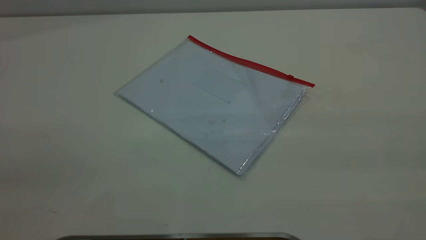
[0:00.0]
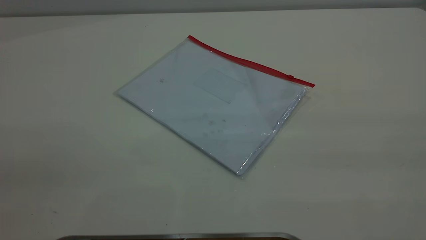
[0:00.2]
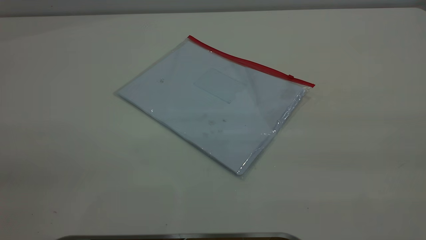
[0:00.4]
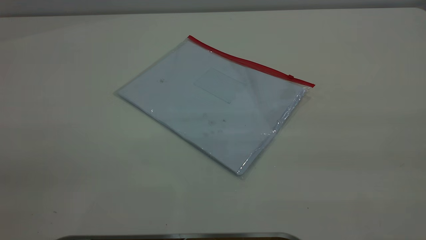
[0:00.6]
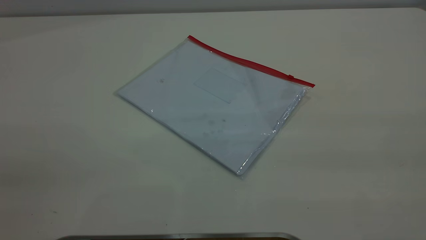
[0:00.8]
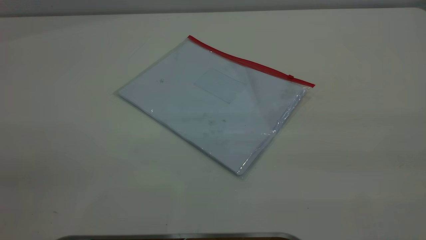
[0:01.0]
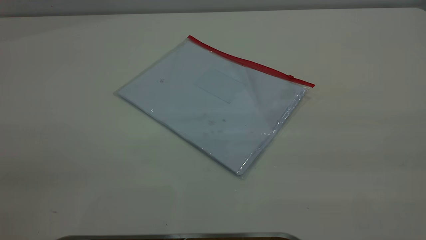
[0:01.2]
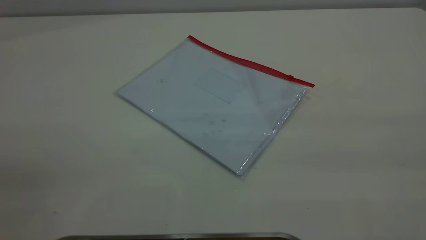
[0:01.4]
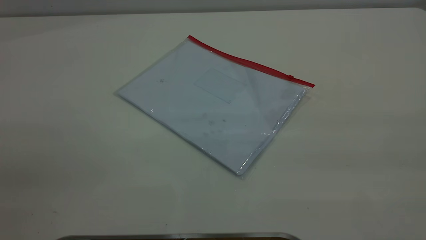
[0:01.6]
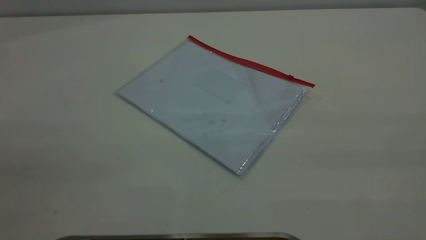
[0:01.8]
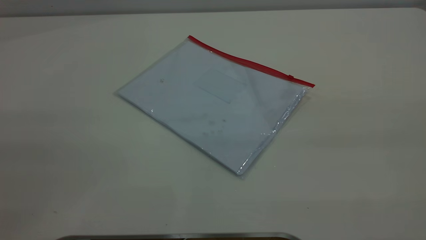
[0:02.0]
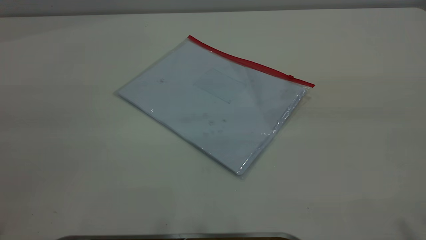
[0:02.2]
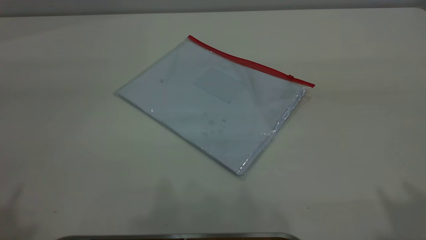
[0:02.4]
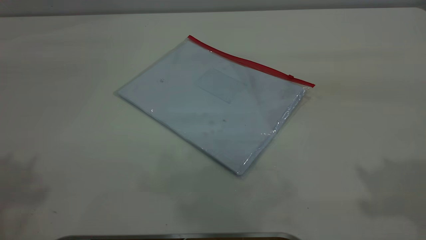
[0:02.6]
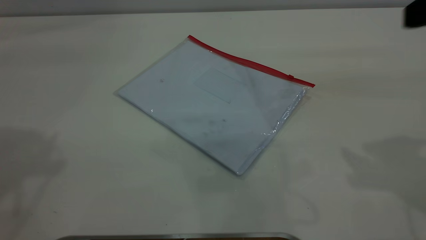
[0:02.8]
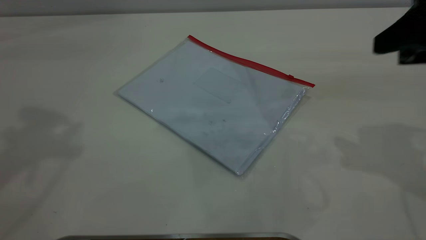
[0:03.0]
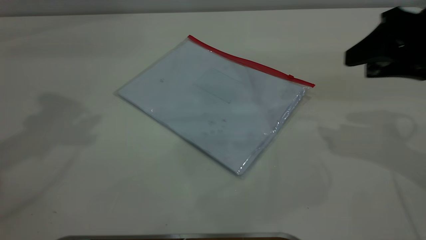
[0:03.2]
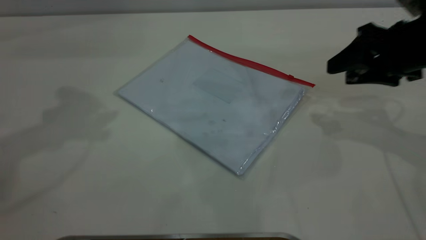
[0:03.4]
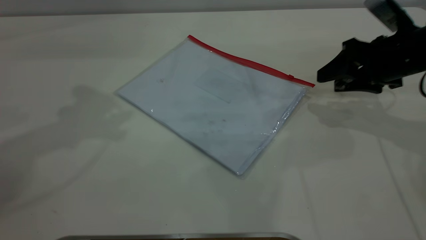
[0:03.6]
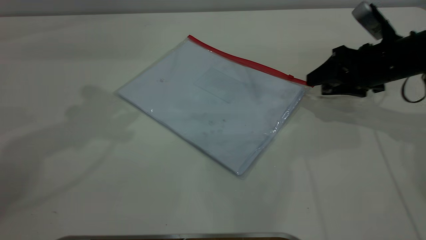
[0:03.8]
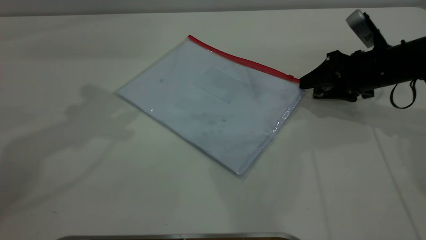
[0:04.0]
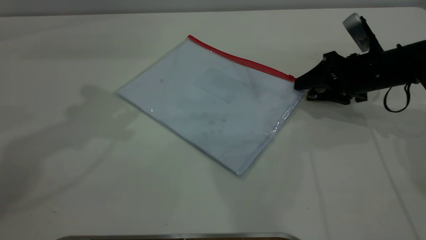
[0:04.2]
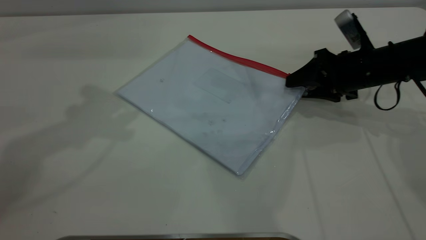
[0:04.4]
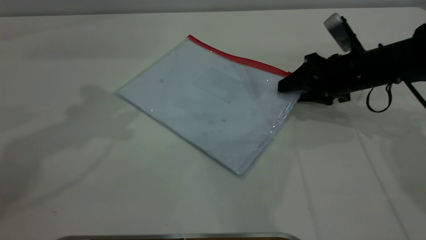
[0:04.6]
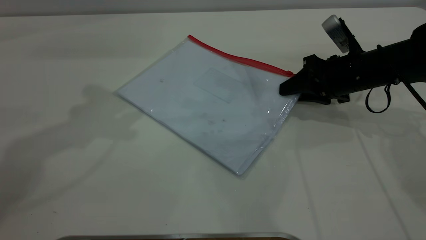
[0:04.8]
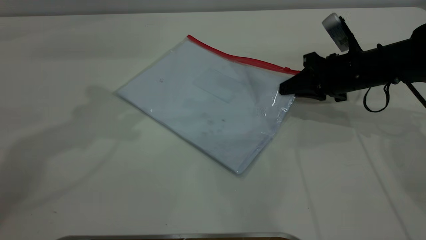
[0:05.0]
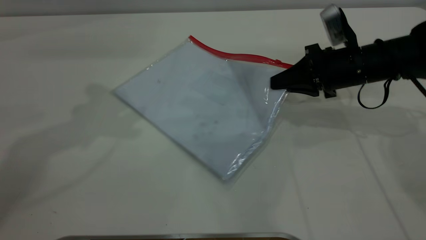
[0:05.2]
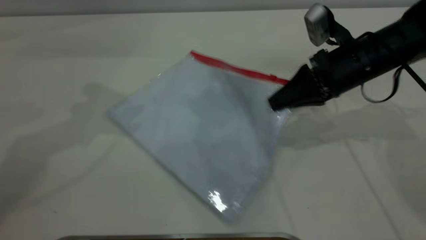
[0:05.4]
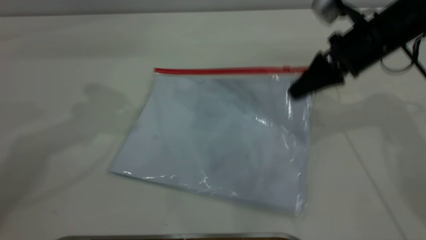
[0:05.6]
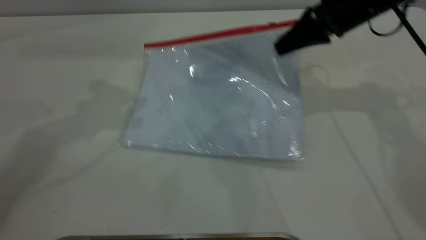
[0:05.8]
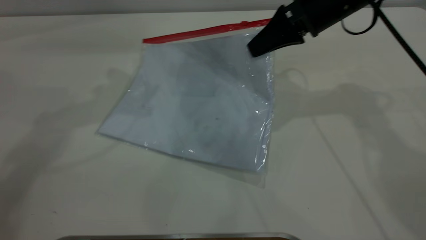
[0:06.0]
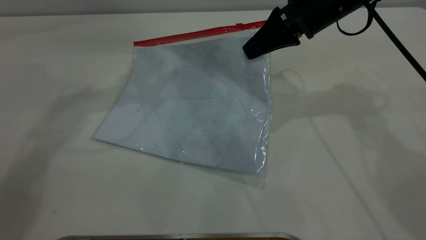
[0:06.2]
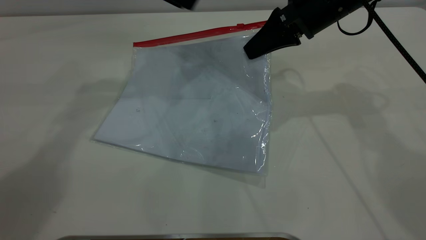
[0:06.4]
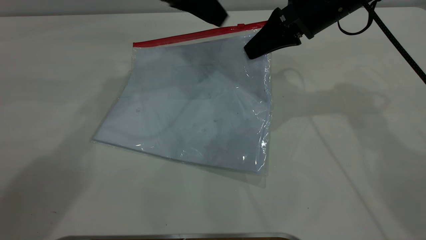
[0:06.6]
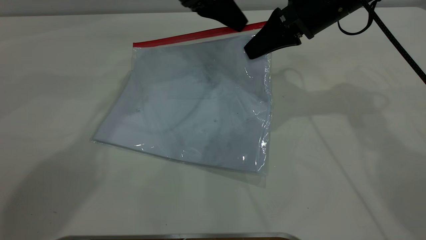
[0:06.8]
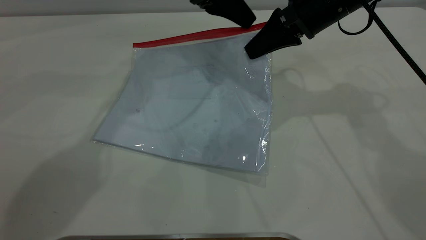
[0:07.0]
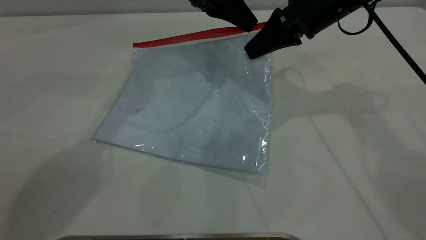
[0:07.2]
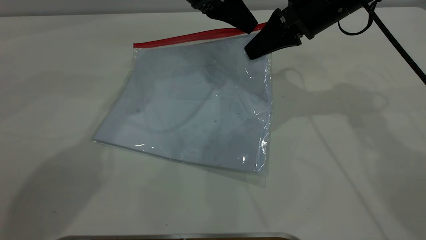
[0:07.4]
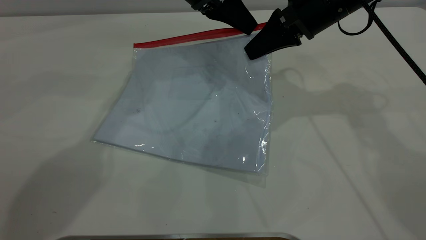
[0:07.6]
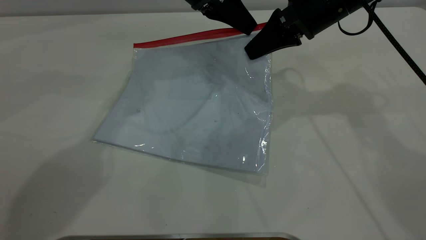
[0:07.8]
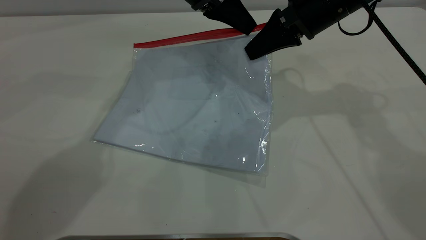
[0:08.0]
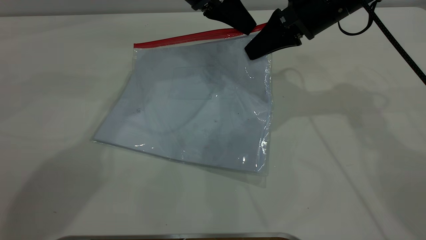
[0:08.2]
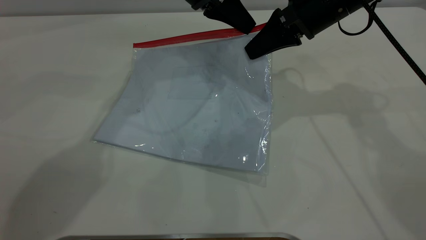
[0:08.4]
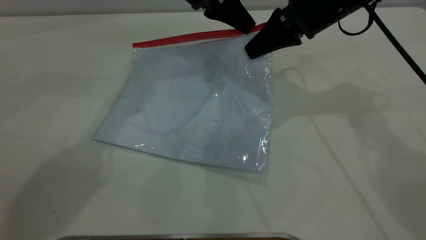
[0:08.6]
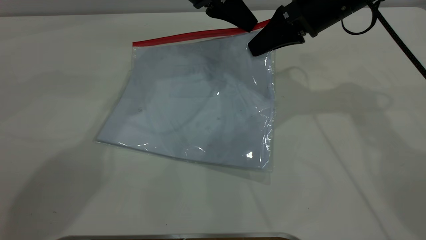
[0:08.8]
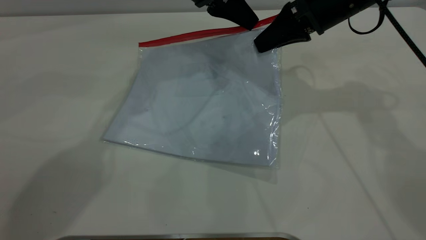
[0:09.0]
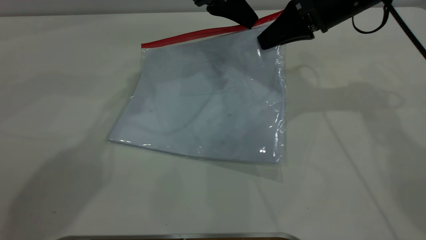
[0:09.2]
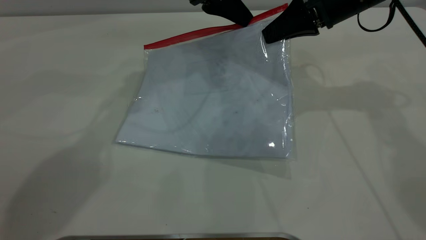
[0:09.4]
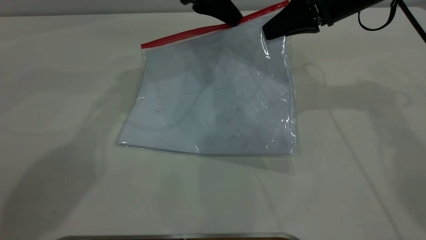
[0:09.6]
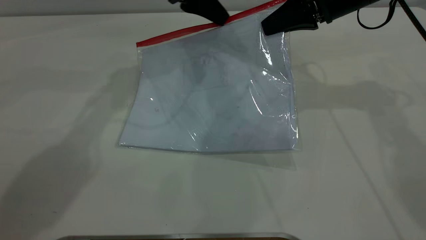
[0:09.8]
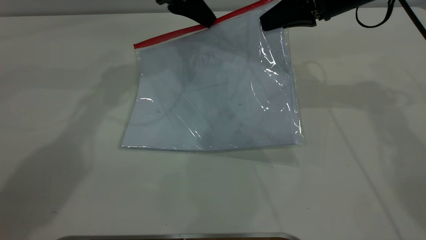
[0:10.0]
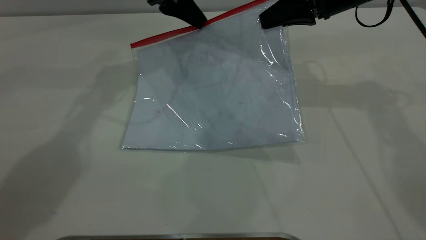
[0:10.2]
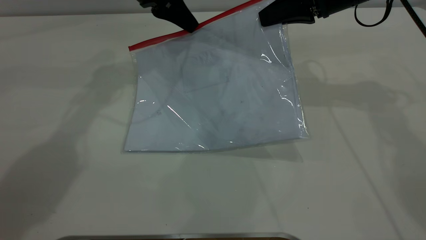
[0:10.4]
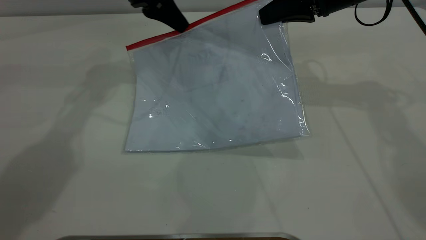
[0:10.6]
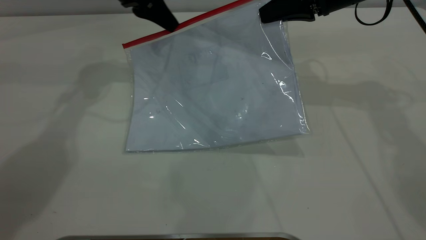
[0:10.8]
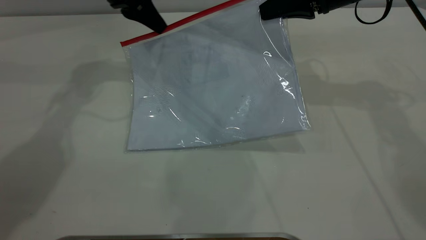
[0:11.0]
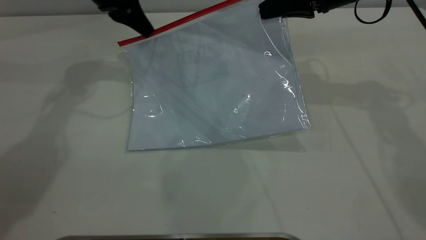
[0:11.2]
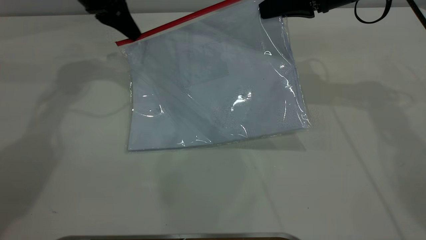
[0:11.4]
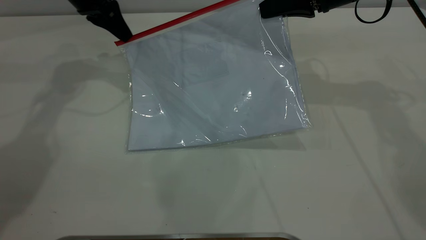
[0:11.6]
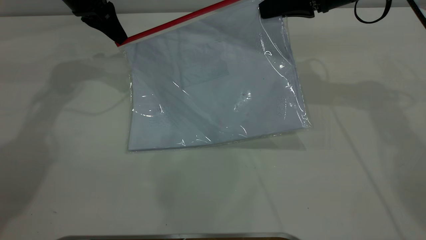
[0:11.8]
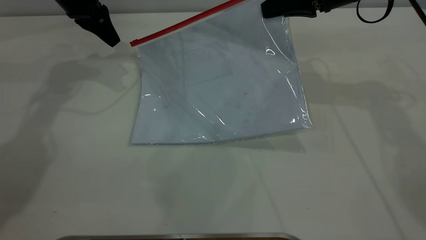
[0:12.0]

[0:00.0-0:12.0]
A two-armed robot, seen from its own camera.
Step, 0:00.0 to 0:05.2: Pick up the transparent plastic bag with the right gripper.
0:00.0 to 0:01.6: Both grippers stay put.
0:01.6 to 0:03.0: The right gripper goes some 30 cm forward and downward.
0:03.0 to 0:04.4: The right gripper goes about 20 cm downward and forward.
0:04.4 to 0:06.0: The right gripper shifts approximately 15 cm upward and to the left, and closes its fingers, while the left gripper is displaced forward by some 5 cm.
0:06.0 to 0:07.6: The left gripper heads to the right and downward, covering about 15 cm.
0:07.6 to 0:09.0: The left gripper closes.
0:09.0 to 0:10.4: The left gripper heads to the left, covering approximately 10 cm.
0:10.4 to 0:12.0: The left gripper moves to the left, about 10 cm.

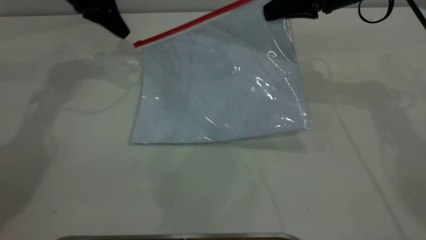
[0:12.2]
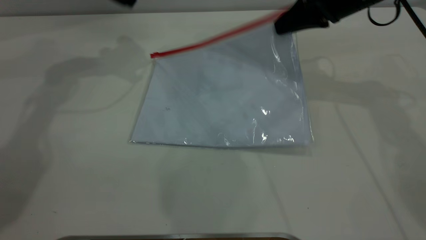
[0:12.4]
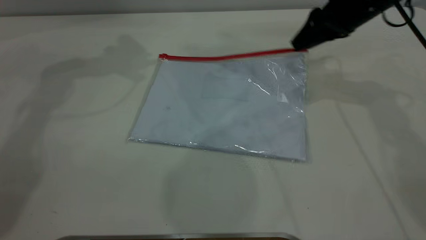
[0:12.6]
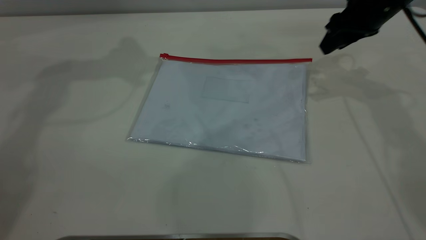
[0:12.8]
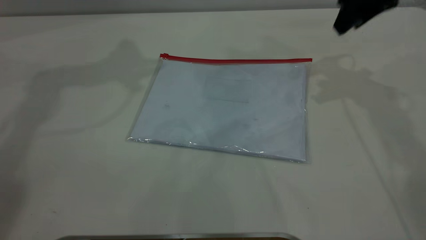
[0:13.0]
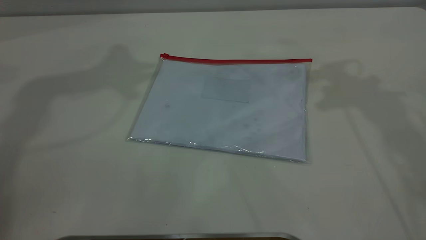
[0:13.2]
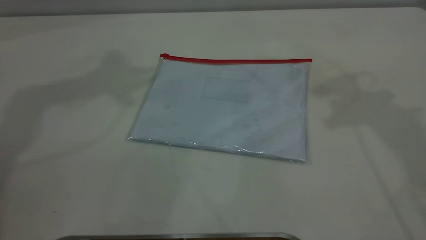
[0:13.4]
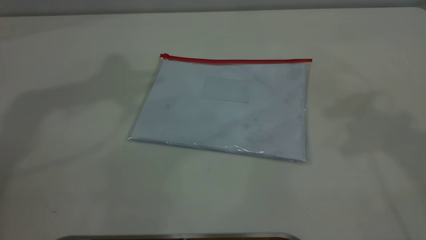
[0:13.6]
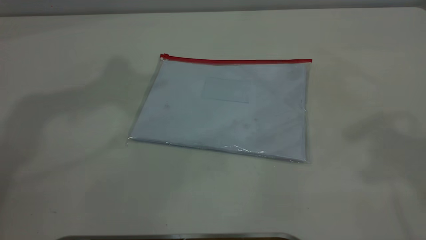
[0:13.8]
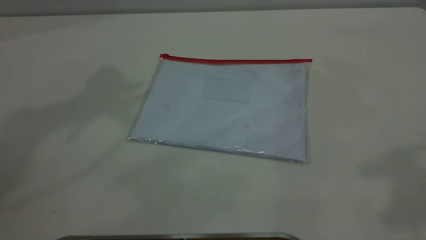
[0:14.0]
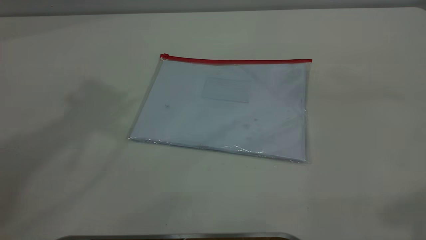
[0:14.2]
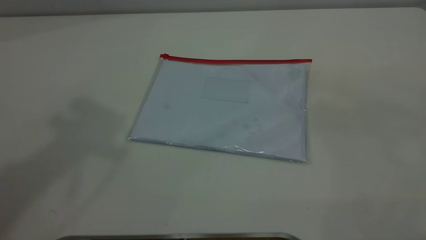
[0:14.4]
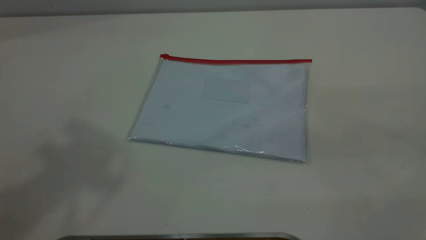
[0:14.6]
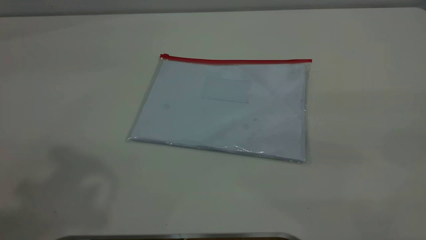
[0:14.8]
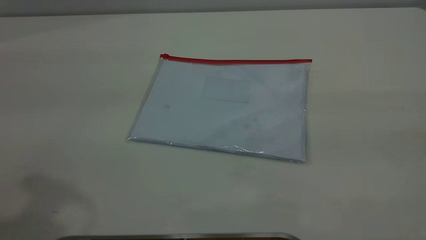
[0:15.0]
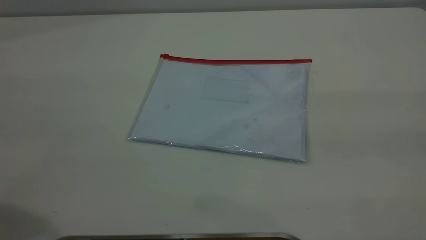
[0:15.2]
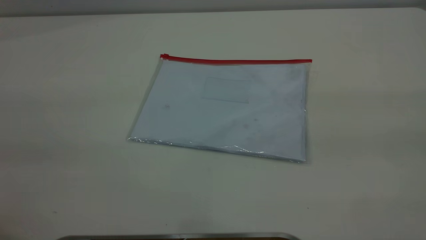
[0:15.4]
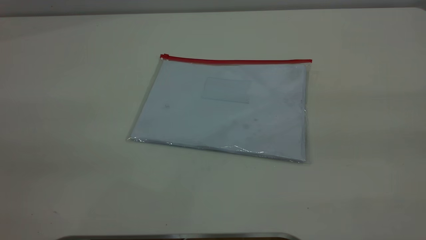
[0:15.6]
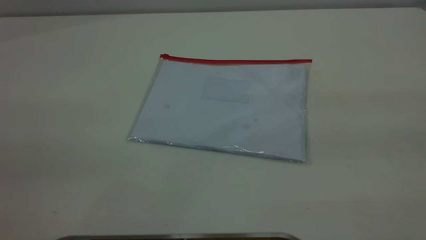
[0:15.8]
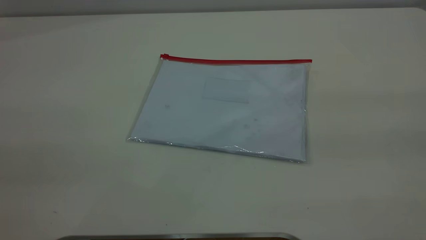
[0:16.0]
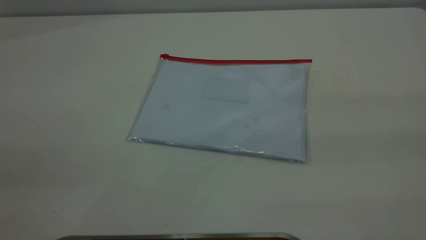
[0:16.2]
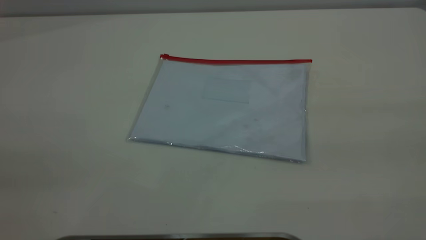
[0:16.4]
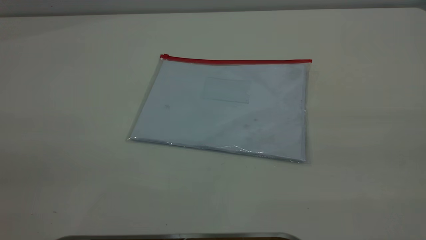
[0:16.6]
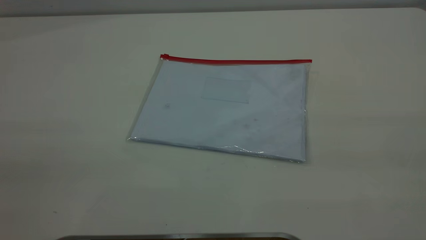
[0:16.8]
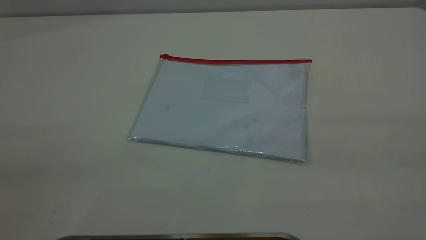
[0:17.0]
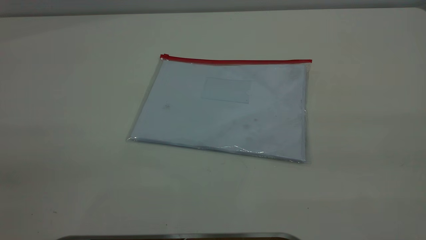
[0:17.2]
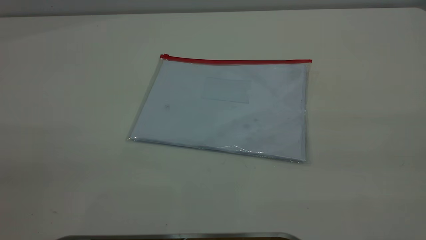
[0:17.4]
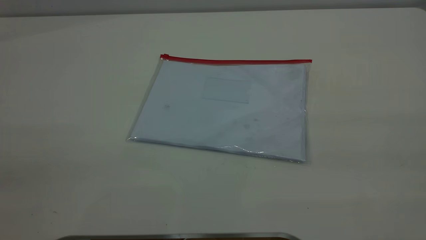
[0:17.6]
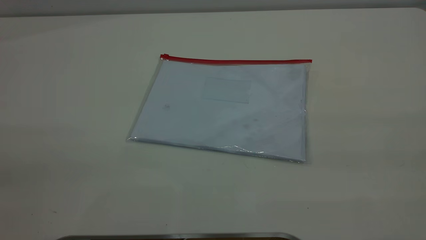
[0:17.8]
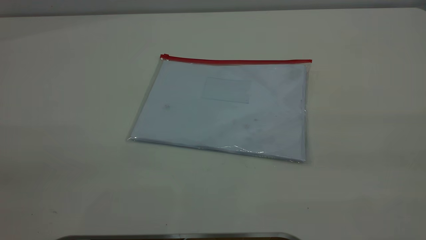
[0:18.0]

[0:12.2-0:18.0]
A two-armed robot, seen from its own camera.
Step, 0:12.2 to 0:12.8: Place the transparent plastic bag.
0:12.2 to 0:13.6: The right gripper heads upward and backward, covering about 30 cm, and opens up, while the left gripper is displaced upward by some 30 cm.
